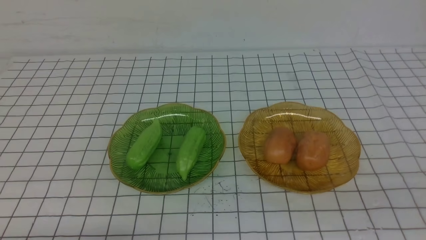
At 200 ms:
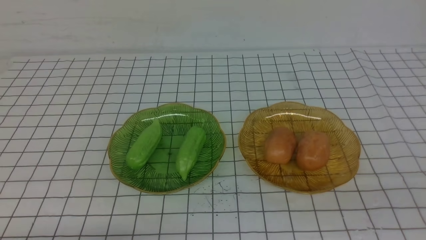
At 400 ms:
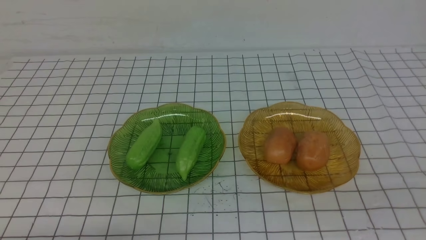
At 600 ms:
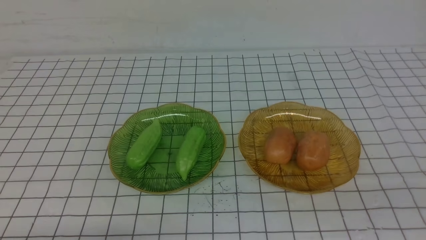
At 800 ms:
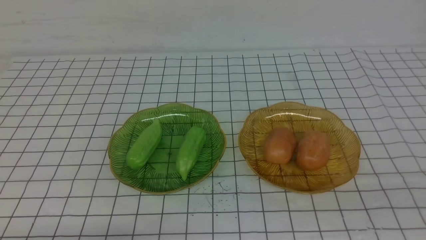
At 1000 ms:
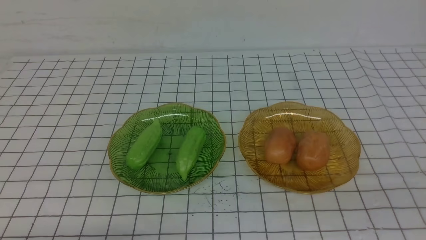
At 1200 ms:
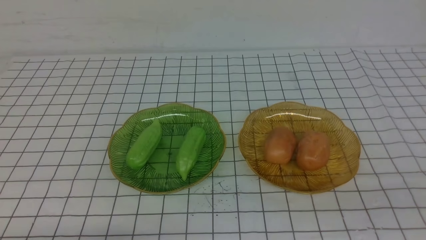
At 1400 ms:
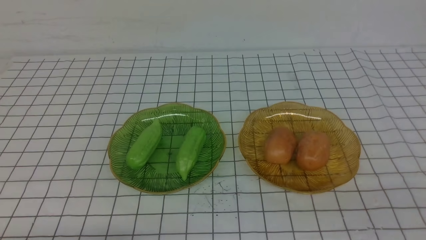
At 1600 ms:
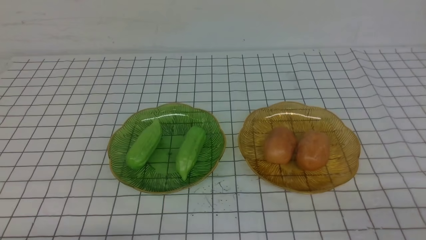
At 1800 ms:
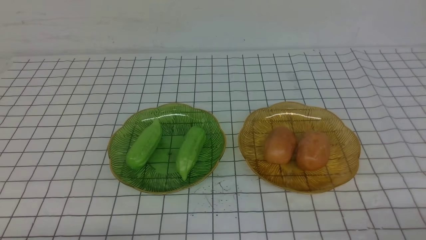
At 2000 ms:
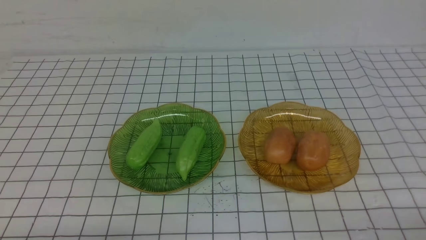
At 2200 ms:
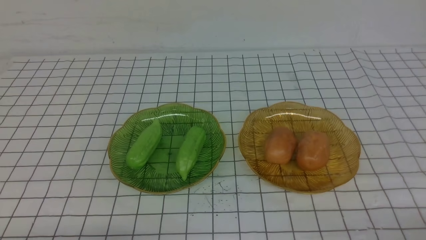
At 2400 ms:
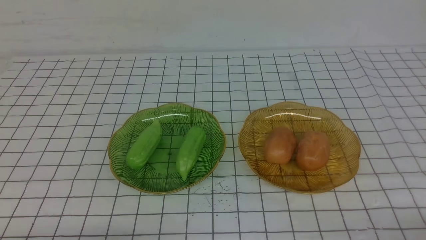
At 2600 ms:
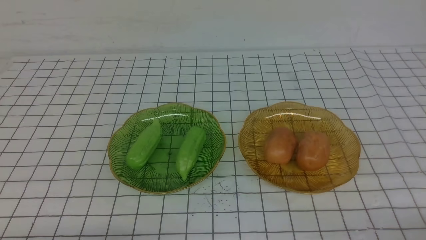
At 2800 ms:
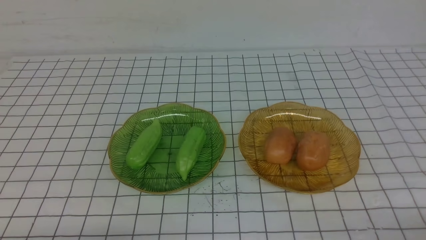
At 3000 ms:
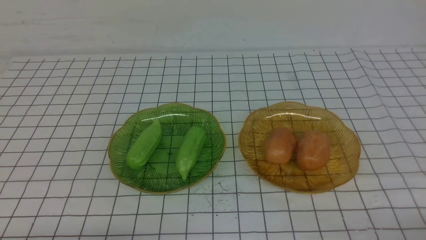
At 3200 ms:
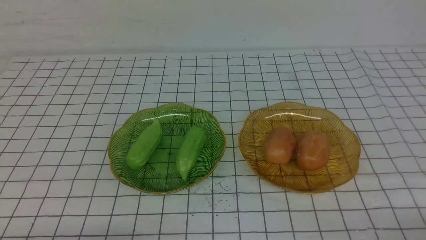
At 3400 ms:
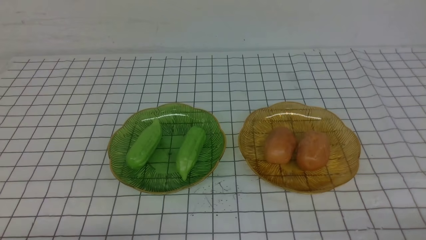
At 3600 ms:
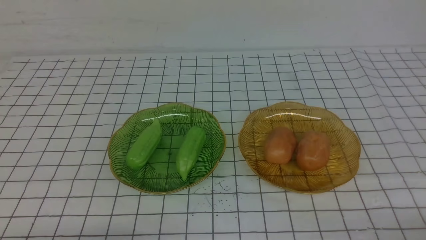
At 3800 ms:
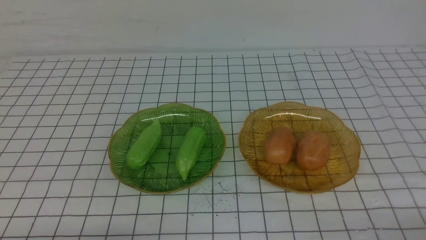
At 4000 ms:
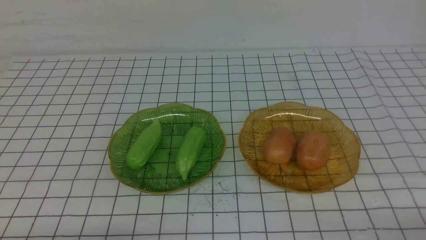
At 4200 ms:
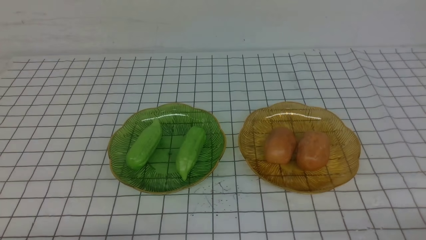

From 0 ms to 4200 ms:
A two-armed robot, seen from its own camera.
From 2800 ms to 4200 ms: Neither gripper changes place.
